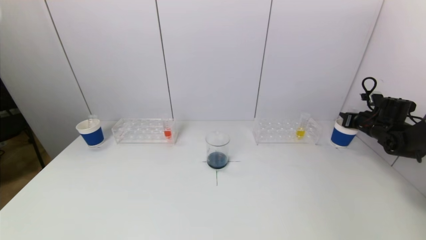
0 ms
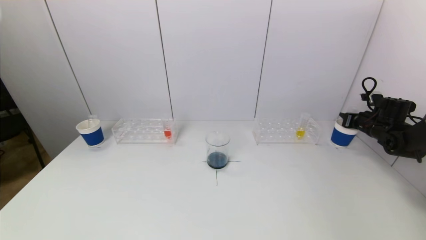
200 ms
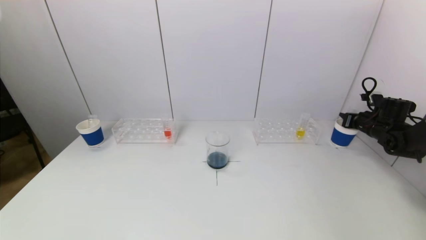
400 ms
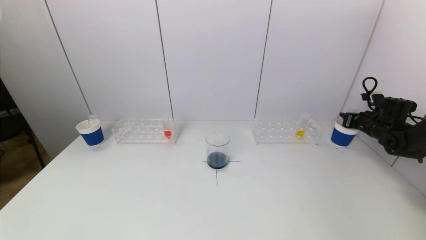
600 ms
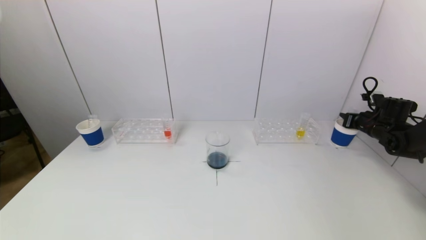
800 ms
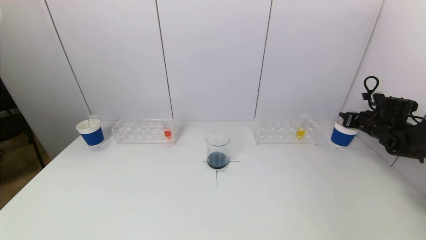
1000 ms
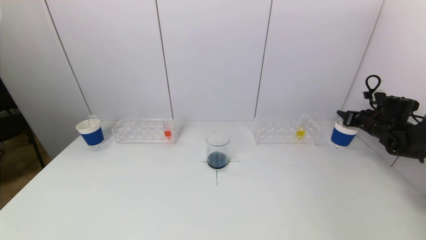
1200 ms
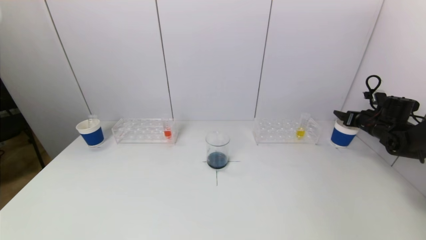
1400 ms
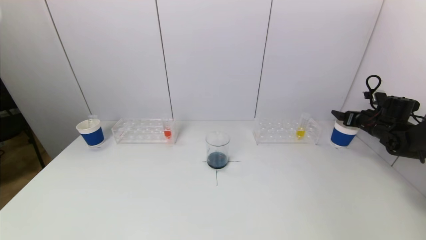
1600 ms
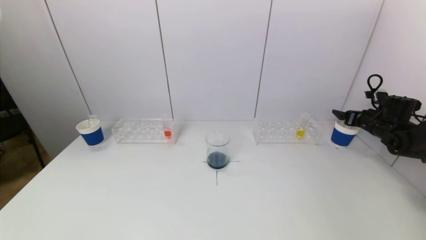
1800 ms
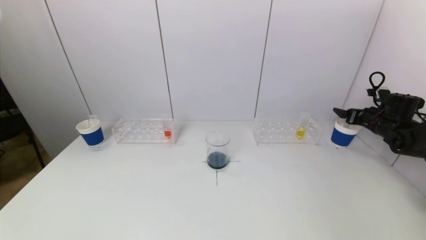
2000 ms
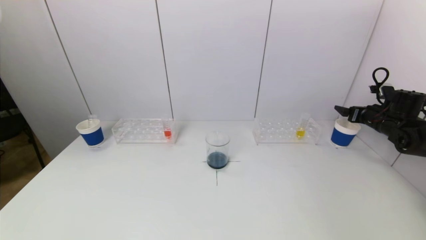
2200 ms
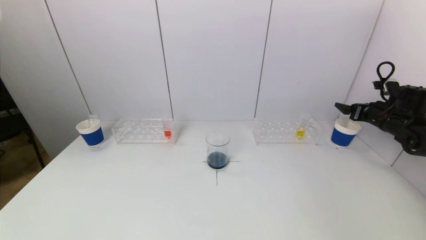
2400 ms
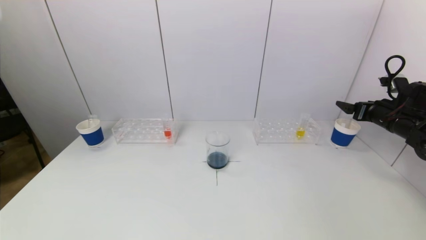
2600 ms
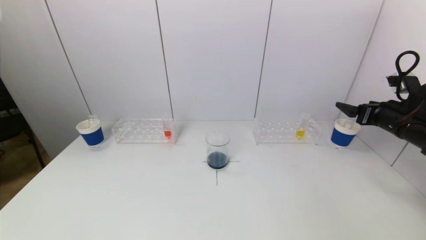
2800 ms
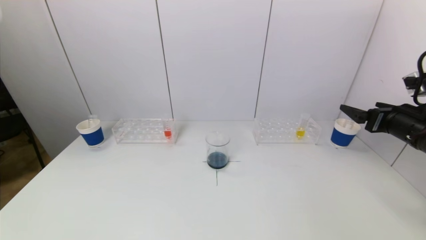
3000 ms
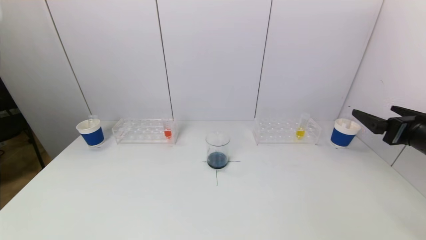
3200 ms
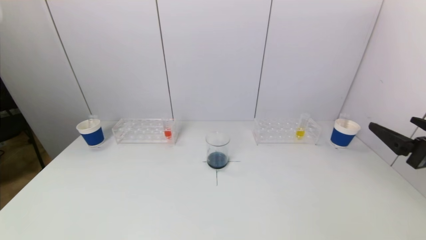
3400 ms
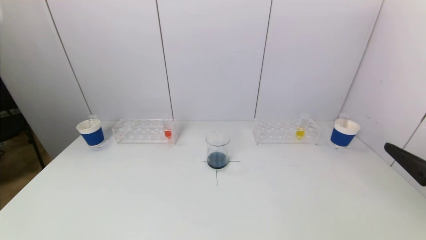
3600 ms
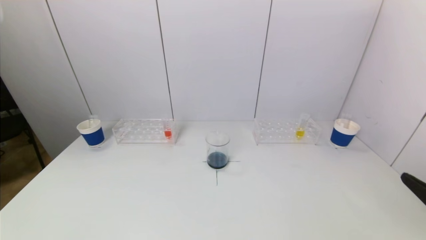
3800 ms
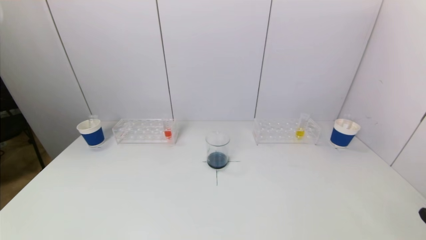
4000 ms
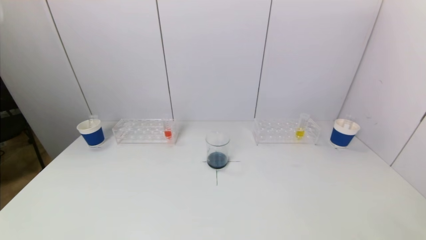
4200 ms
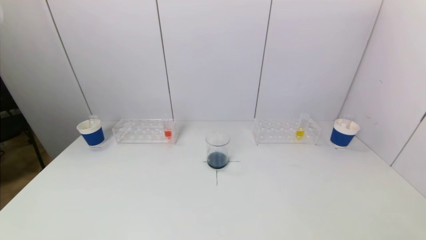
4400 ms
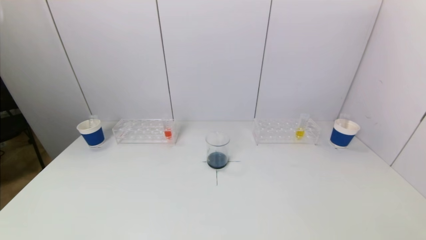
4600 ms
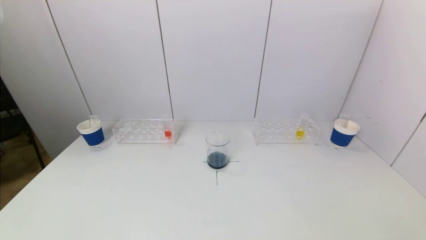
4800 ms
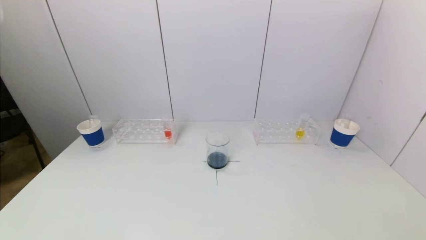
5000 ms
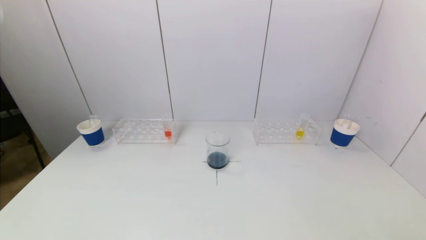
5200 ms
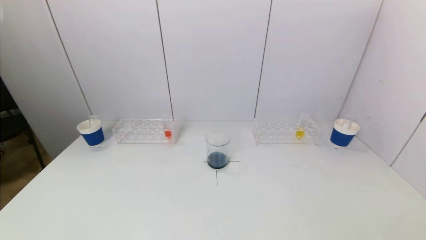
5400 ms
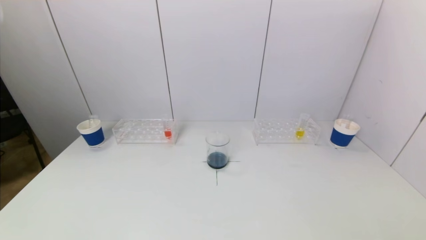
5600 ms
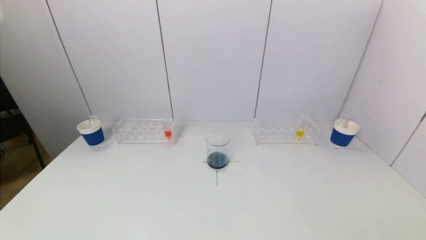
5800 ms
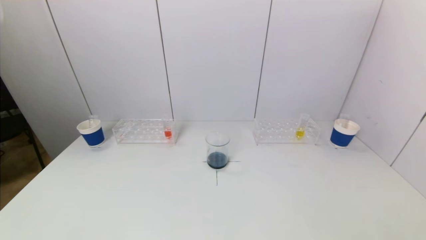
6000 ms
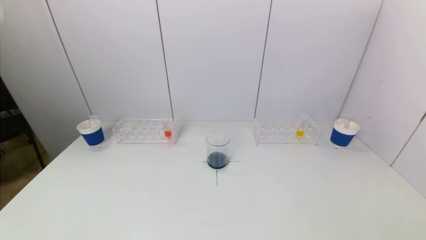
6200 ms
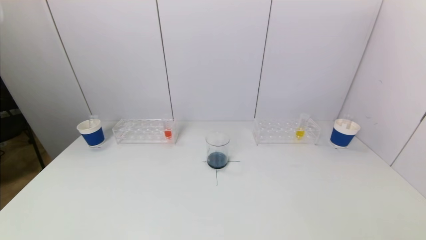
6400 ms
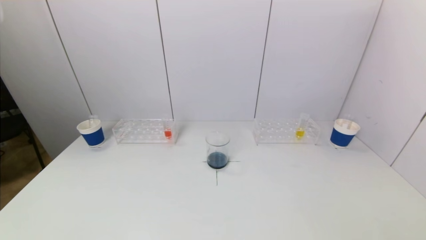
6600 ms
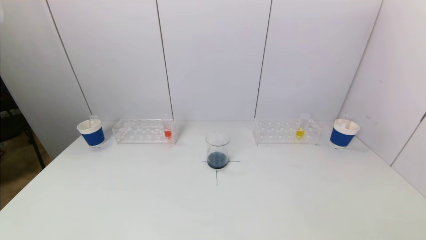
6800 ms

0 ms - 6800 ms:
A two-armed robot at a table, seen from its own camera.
Task of the whole recording: pick up a test tube with pigment on left test tube rack and a test tube with pigment on right test tube rack by grippers and pour them into the beaker.
0 ms - 1400 ms: The right gripper opens.
1400 ms - 2800 ms: The right gripper moves backward, upward and to the left, approximately 20 cm.
2800 ms - 4000 ms: The right gripper shifts approximately 30 cm backward.
5400 ms - 6800 ms: Both grippers stay about where they are.

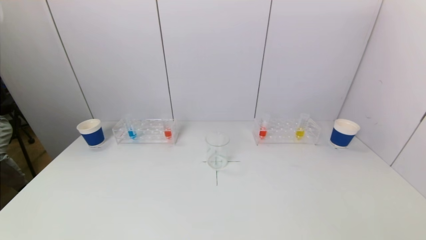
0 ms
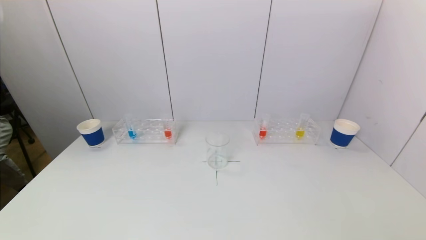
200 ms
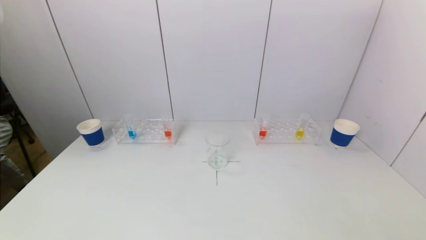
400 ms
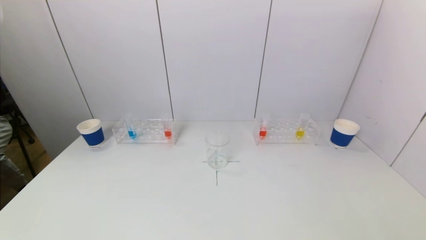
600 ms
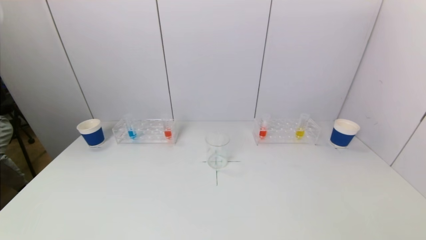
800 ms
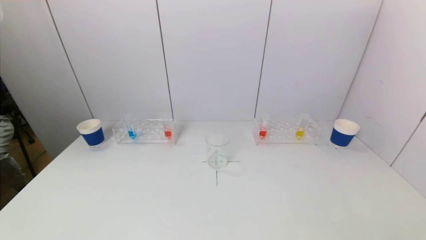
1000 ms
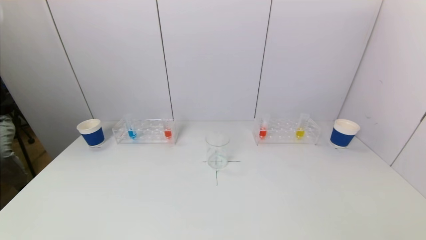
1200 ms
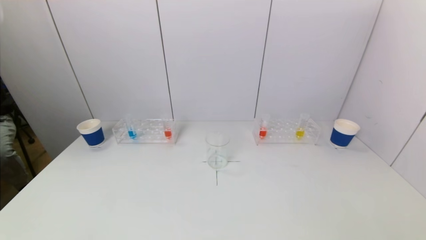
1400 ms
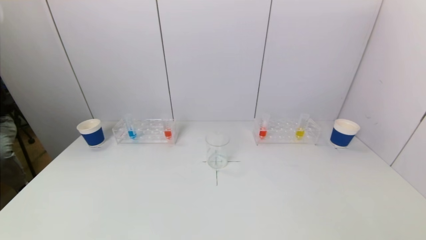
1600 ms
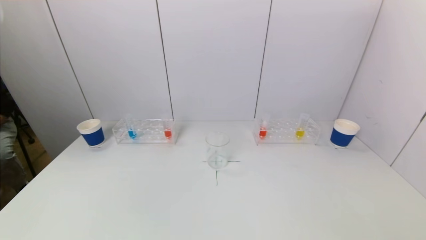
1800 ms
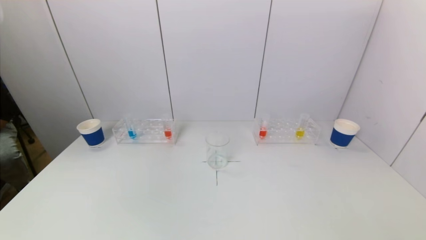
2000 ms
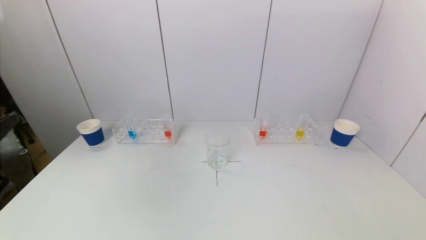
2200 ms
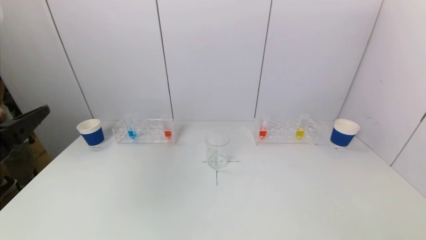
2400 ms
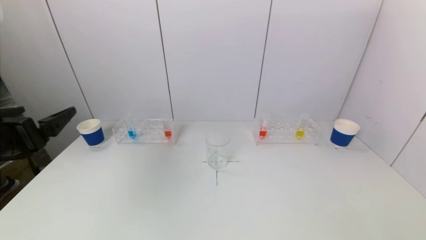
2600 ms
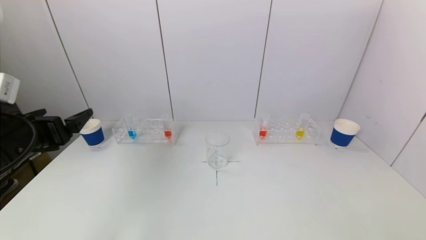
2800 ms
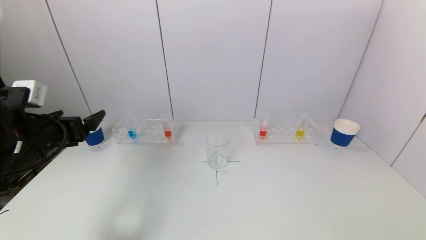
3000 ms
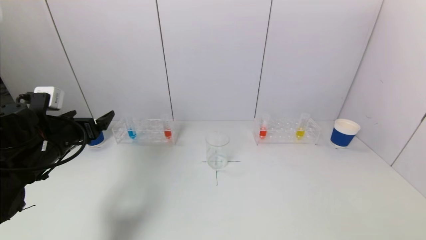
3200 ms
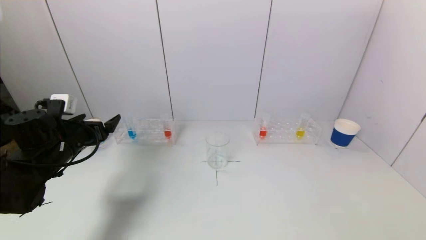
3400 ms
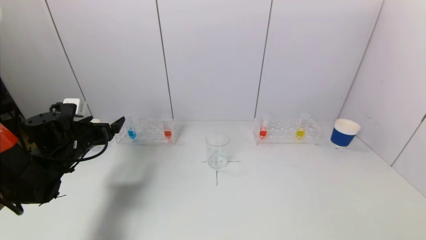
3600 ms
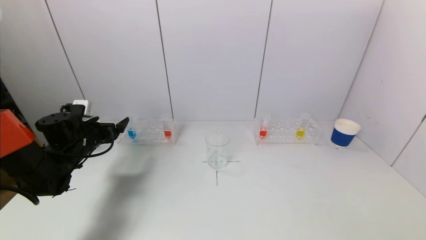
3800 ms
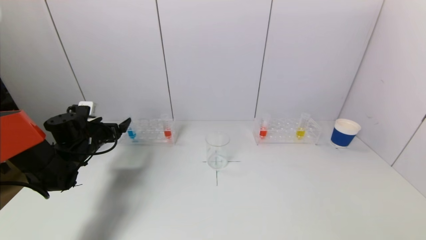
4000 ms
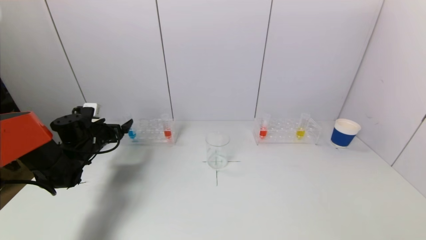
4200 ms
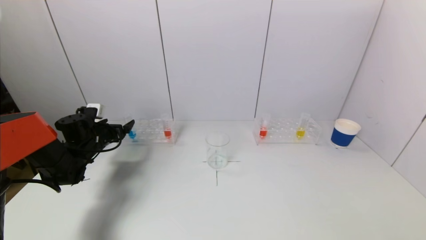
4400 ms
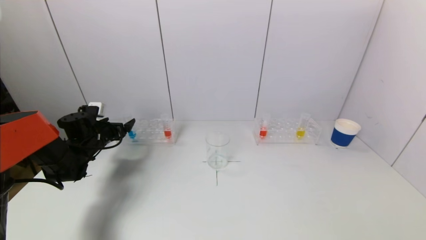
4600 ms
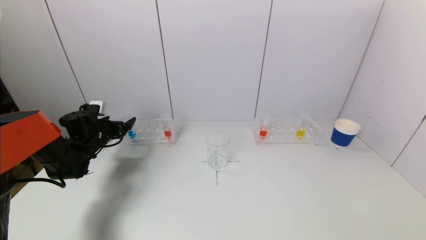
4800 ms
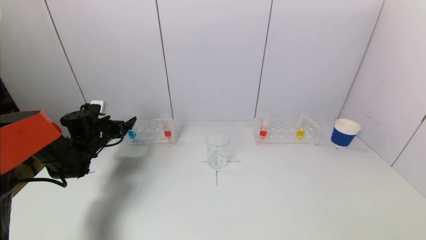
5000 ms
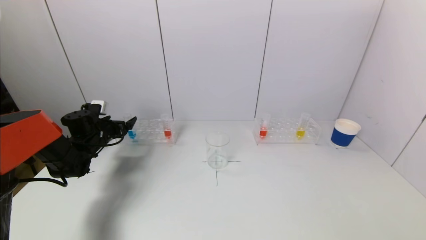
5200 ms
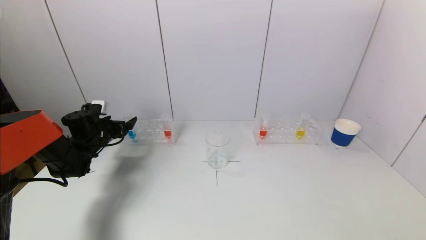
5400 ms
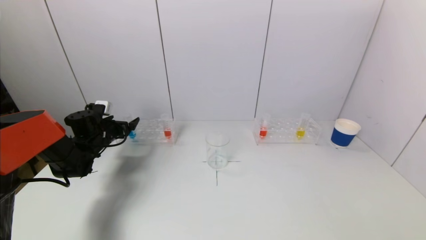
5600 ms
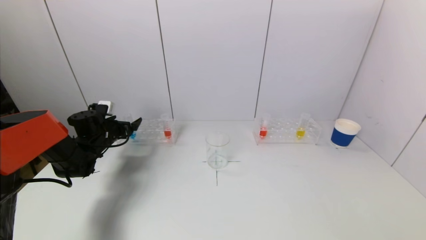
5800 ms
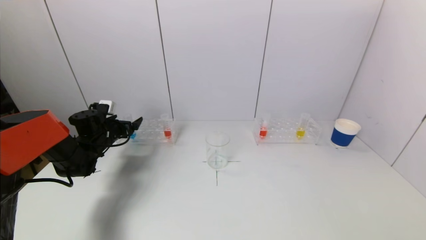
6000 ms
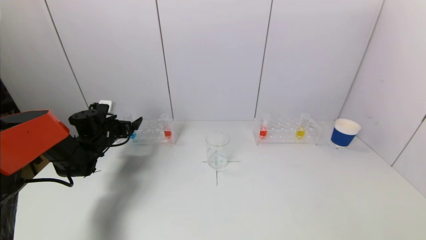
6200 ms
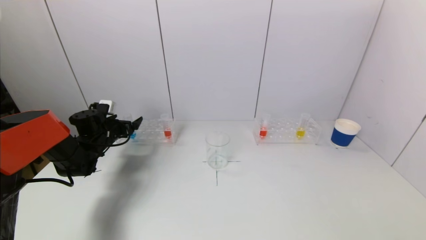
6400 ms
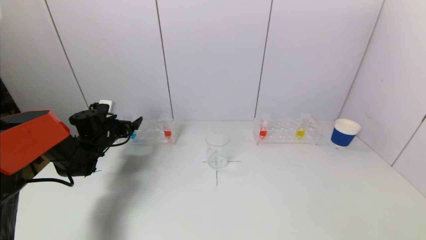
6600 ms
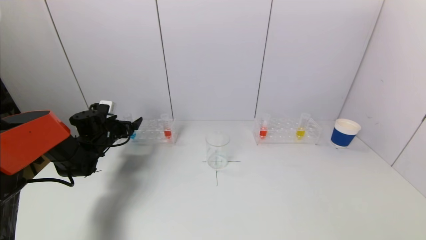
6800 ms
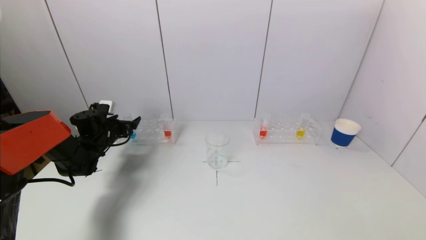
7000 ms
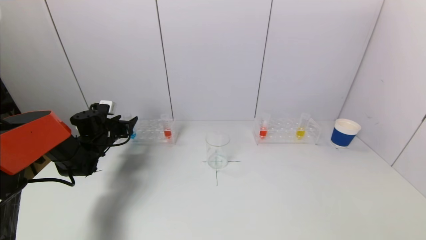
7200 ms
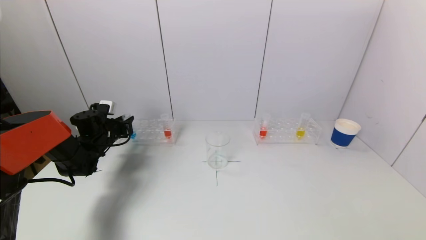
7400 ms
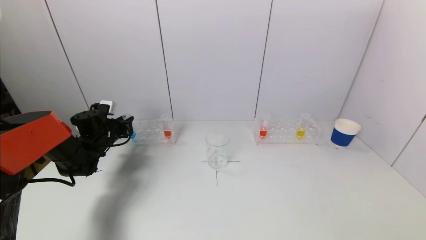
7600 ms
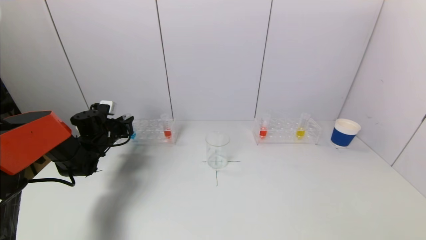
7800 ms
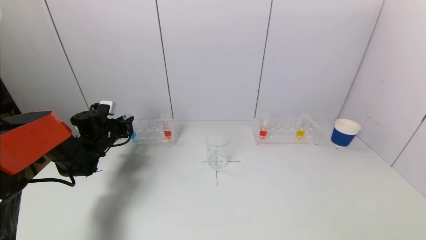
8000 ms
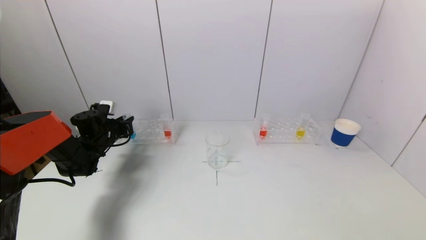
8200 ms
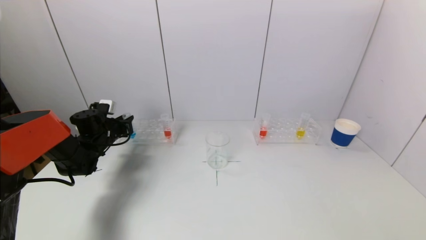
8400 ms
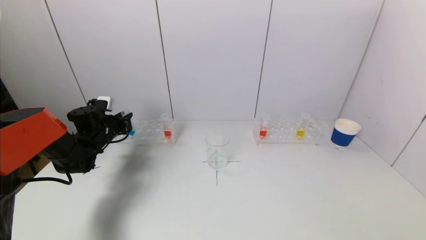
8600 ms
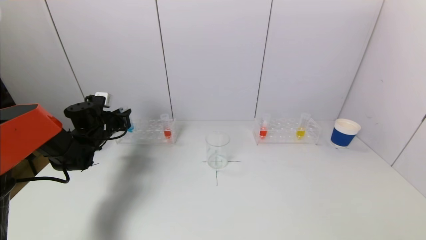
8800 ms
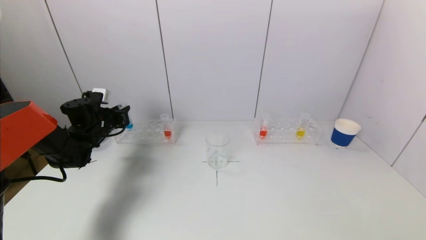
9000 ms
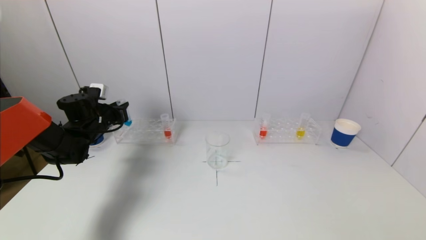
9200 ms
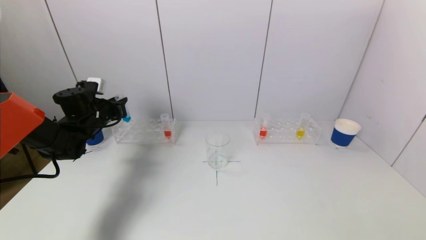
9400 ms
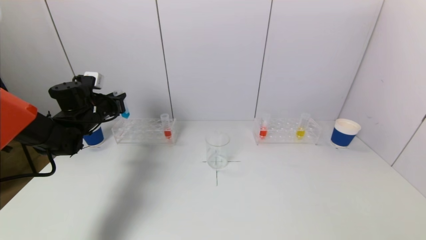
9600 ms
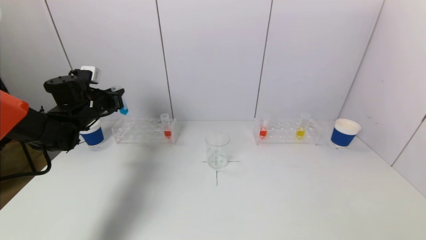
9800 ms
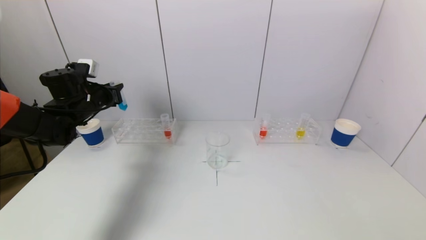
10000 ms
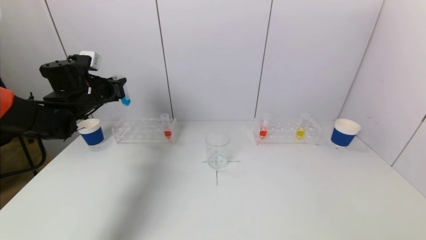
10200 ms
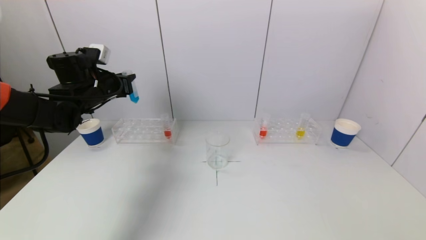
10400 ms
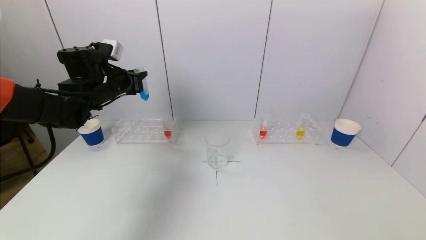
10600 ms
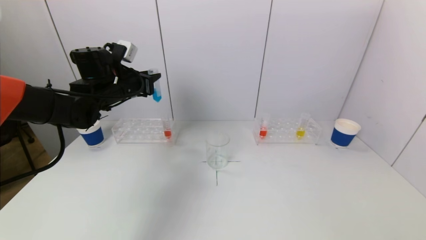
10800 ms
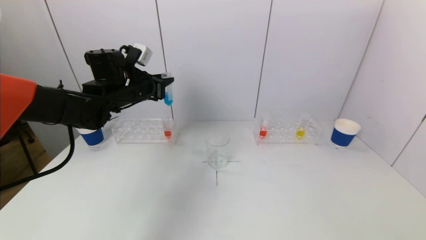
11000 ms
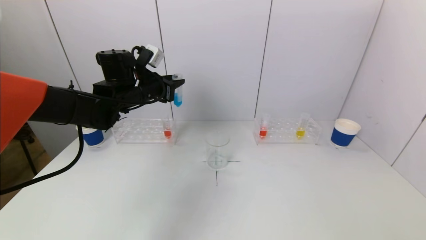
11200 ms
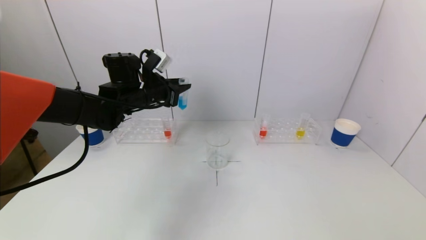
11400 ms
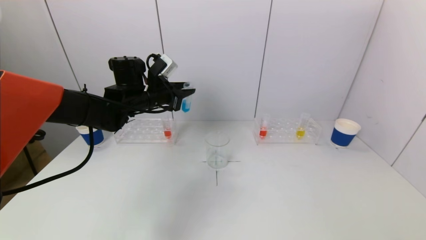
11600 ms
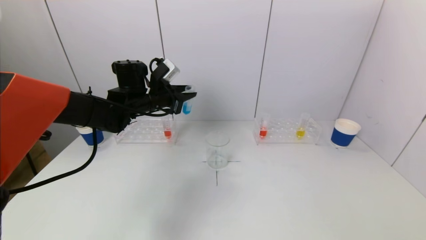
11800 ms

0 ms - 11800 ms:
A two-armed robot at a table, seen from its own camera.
Task of the whole recording: pick up a test tube with pigment on left test tube rack and a test tube with pigment on right test tube rack by grippers and pour them into the beaker.
Step, 0 ms - 7600 ms: Grasp the blue reagent with the left gripper.
1400 ms - 3000 ms: The left gripper goes some 25 cm forward.
3000 ms - 4400 ms: The left gripper shifts roughly 20 cm forward and downward.
4400 ms - 6000 ms: The grippers make only small movements.
6000 ms - 7400 ms: The left gripper closes up.
7400 ms - 8800 ms: The grippers stay close to where they were, moving slightly.
8800 ms - 10400 ms: The left gripper heads upward, covering about 15 cm.
10400 ms - 11800 ms: The left gripper heads to the right, covering roughly 10 cm.
